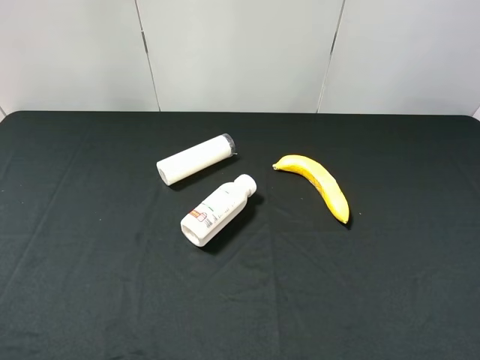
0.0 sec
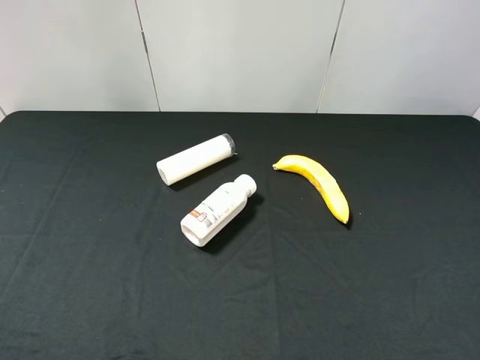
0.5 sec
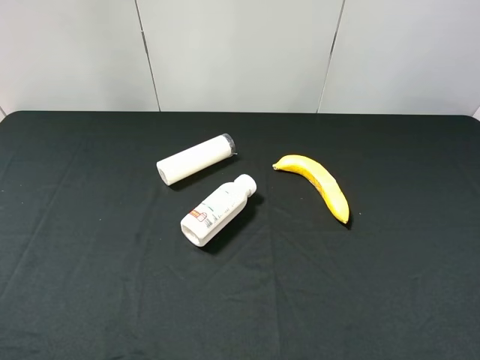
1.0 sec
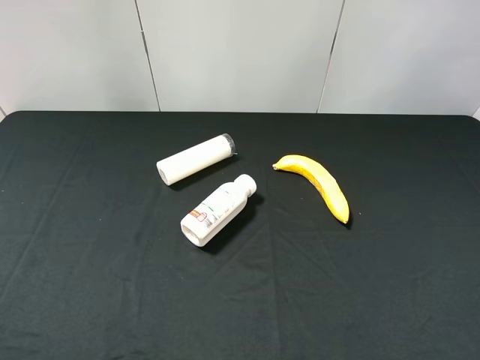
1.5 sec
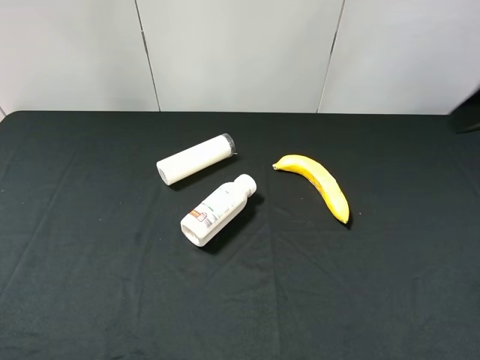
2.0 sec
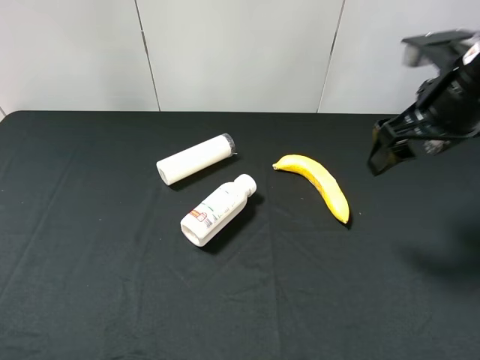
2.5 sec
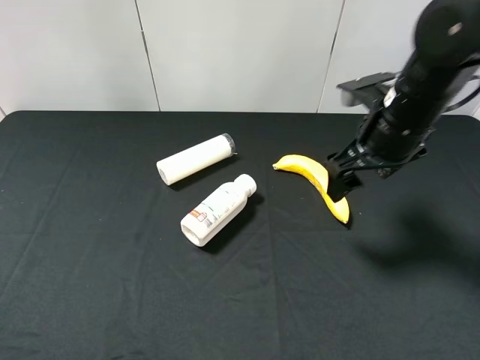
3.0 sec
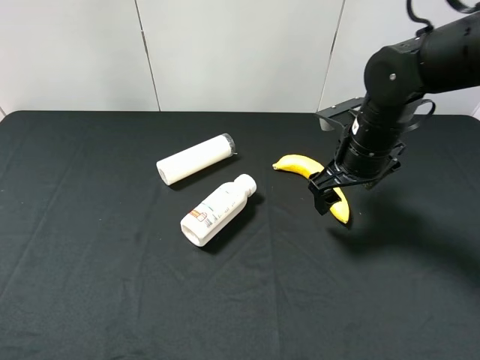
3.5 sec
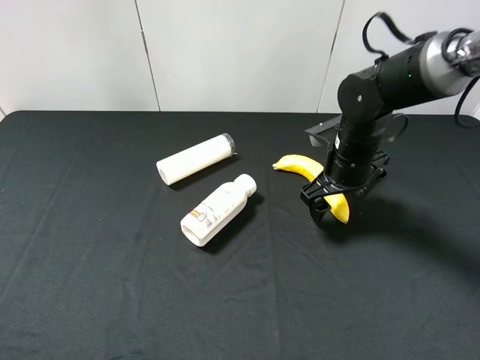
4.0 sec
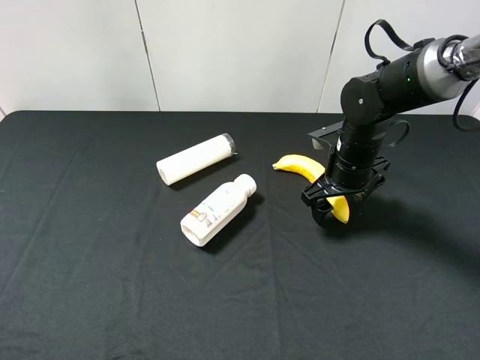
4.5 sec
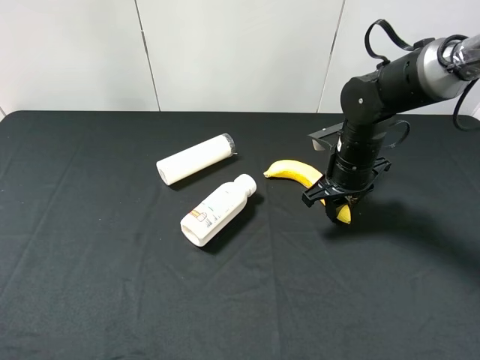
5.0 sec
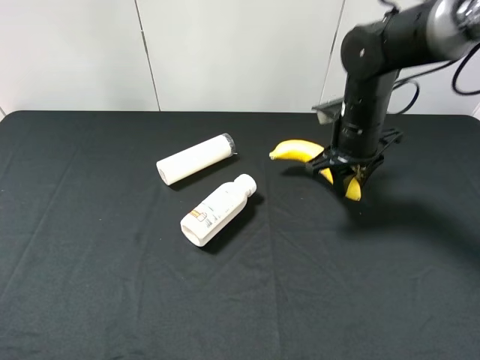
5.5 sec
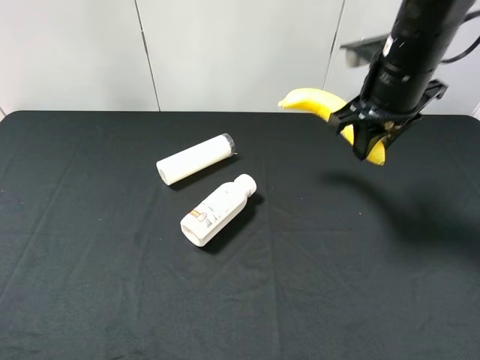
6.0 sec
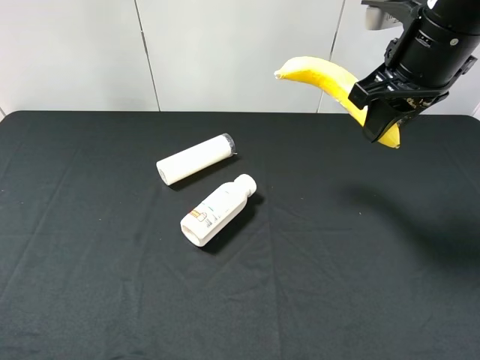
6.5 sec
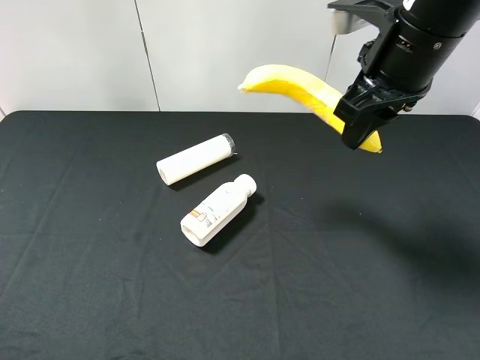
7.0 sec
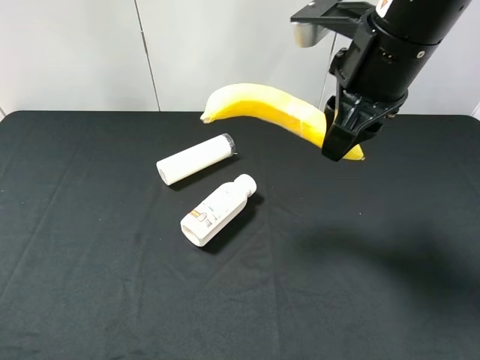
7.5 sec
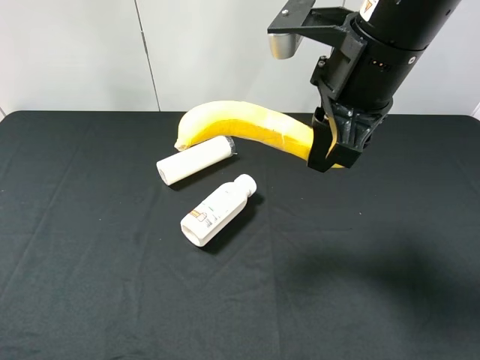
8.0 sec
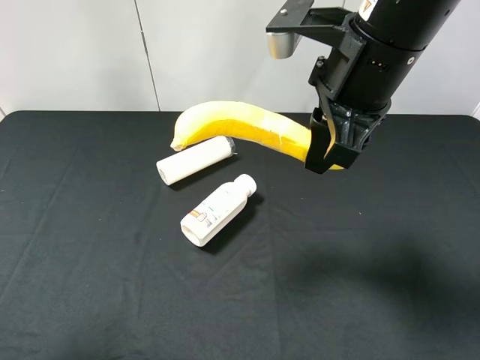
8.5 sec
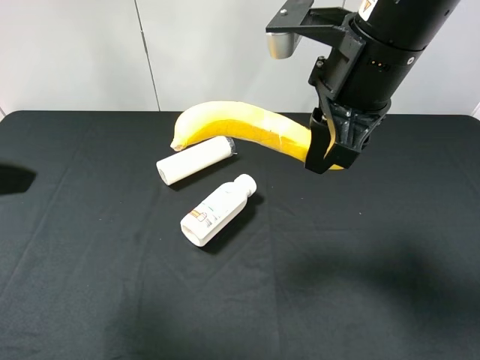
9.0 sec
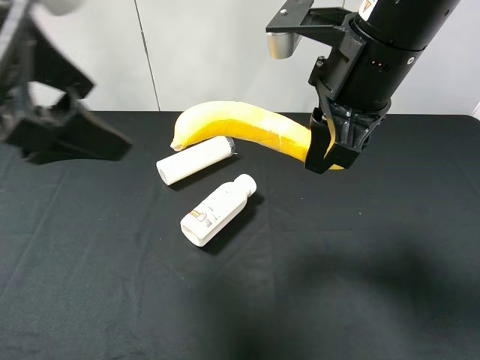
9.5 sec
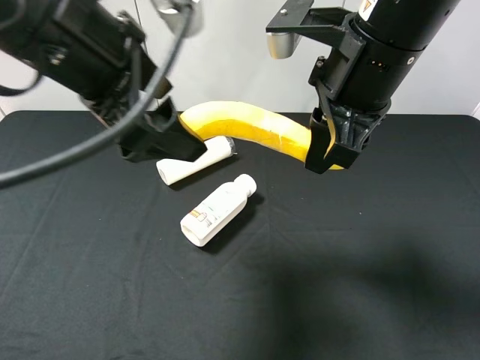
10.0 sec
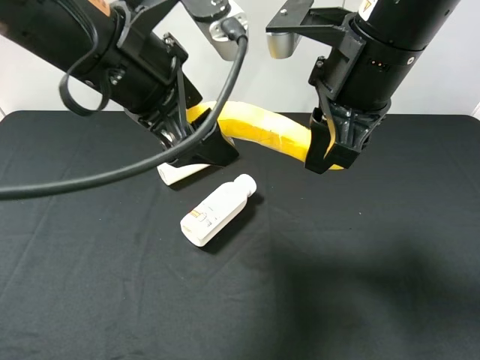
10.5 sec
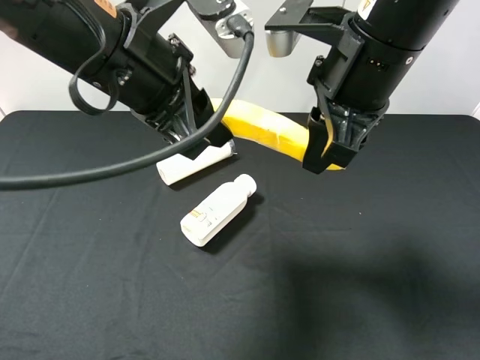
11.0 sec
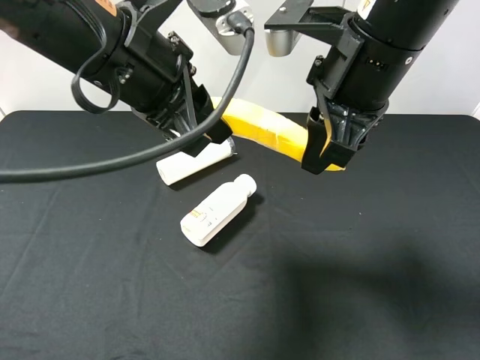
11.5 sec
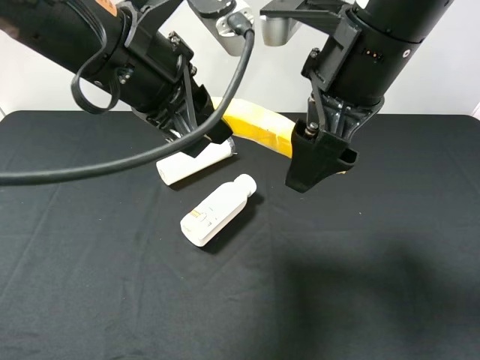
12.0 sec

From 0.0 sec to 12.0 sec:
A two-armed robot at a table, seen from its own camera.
Task of the whole recording: use the right gripper to pick up the item and transfer it from the right gripper to the left gripper.
Step, from 0.0 sec to 5.0 sec: Use the right gripper to grab the banana on the right side of the table.
From 2.0 sec to 4.0 sec: The right gripper shifts approximately 30 cm downward and forward.
From 4.0 sec to 6.0 sec: The right gripper shifts approximately 15 cm upward, and closes up.
From 6.0 sec to 8.0 sec: The right gripper travels backward and to the left by roughly 10 cm.
From 8.0 sec to 10.0 sec: The left gripper goes about 30 cm forward and to the right.
From 10.0 sec to 12.0 sec: The left gripper closes. Meanwhile the right gripper opens its fingers.

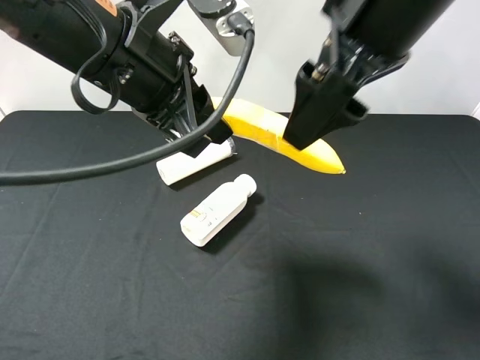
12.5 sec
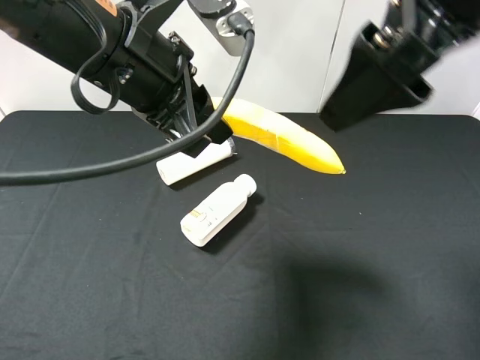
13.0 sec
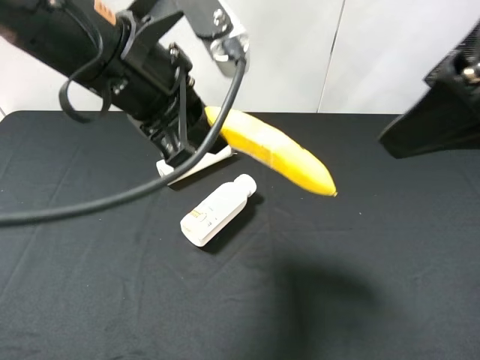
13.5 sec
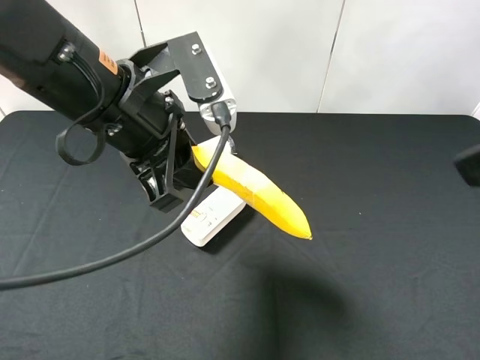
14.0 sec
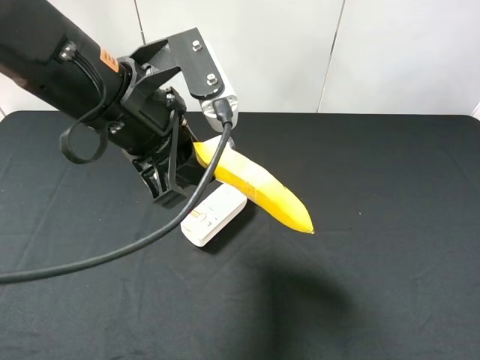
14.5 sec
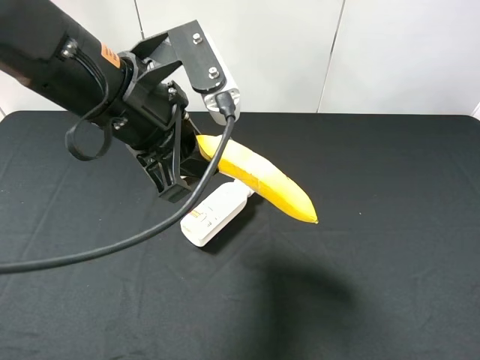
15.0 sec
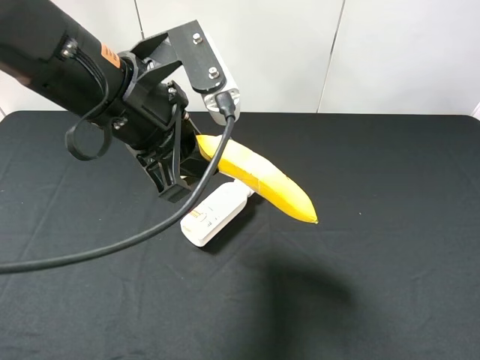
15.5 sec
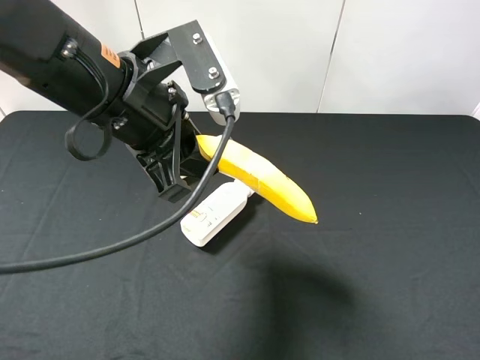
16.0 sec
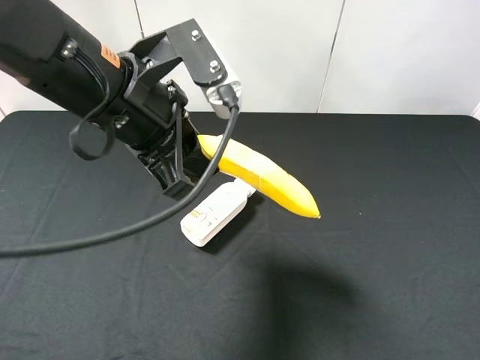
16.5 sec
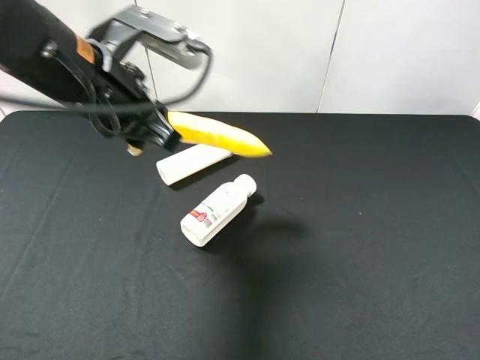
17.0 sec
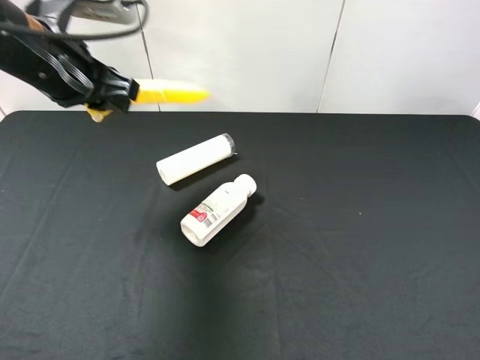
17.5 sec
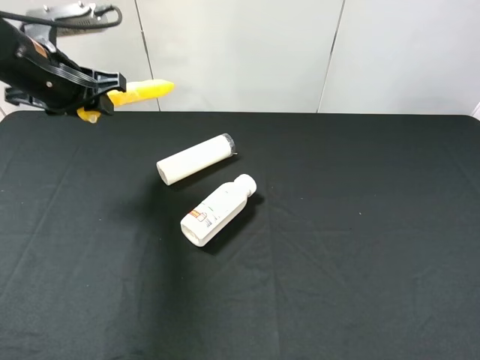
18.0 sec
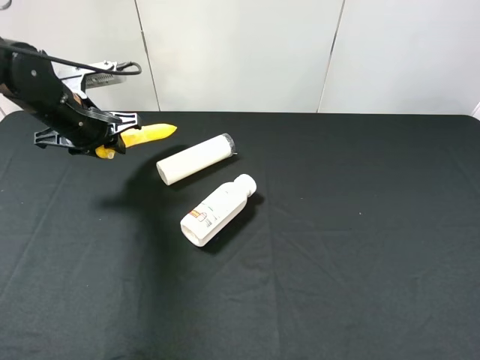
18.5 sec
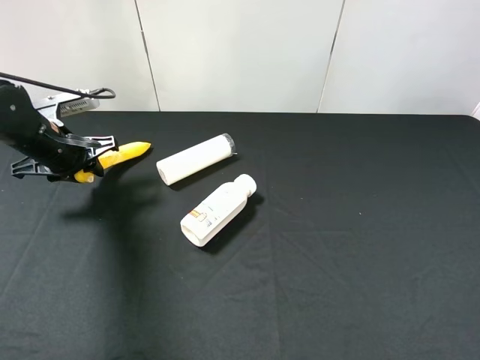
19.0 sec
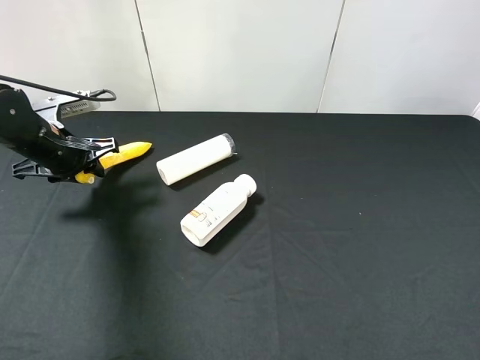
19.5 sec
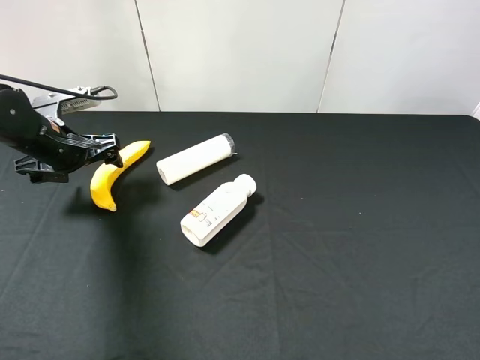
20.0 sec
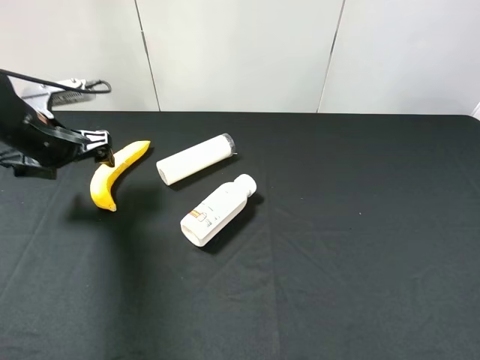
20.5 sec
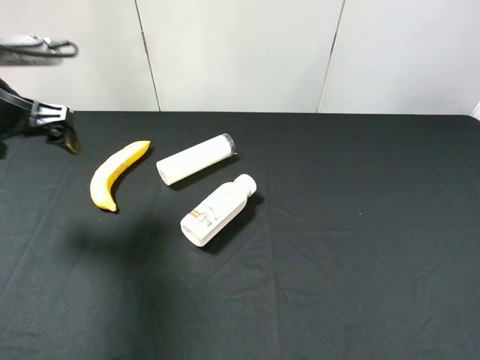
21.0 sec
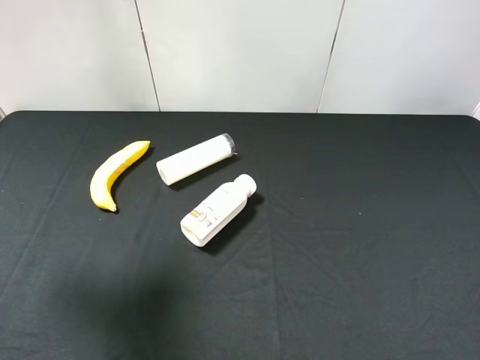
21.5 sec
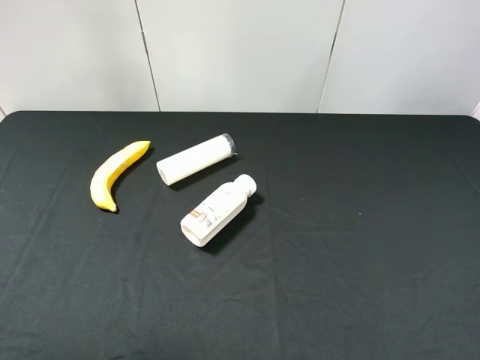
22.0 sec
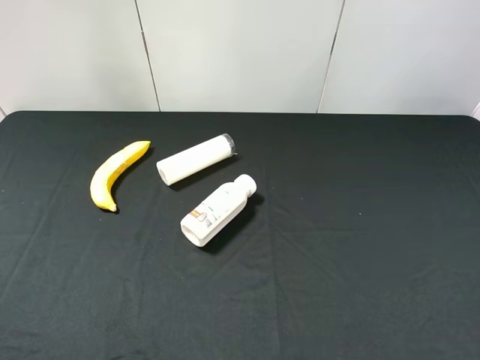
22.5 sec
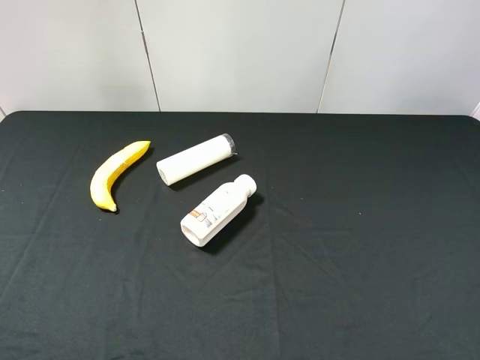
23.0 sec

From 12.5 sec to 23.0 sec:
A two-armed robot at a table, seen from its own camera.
Task of the whole recording: use the right gripper to pick up the item and transfer it from the right gripper to the left gripper.
Step, from 12.5 sec to 20.0 sec: The left gripper places banana on the left side of the table.
From 12.5 sec to 14.5 sec: The right gripper moves backward and to the right, about 25 cm.
From 14.5 sec to 16.5 sec: The right gripper changes place by roughly 5 cm.
From 16.5 sec to 19.0 sec: The left gripper goes some 25 cm to the left, downward and forward.
From 19.0 sec to 21.0 sec: The left gripper shifts approximately 15 cm upward and backward, and opens.
From 21.0 sec to 23.0 sec: The left gripper goes approximately 30 cm backward.
